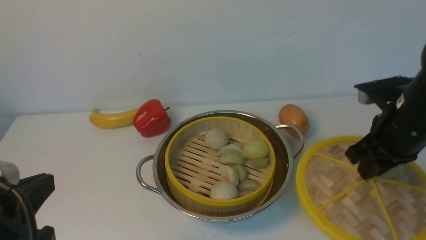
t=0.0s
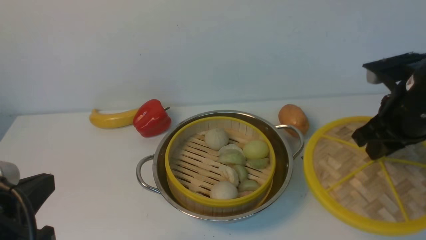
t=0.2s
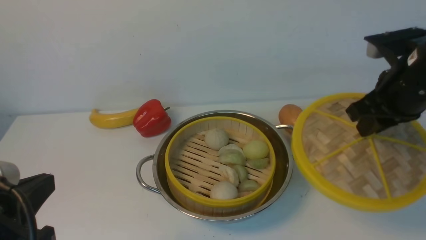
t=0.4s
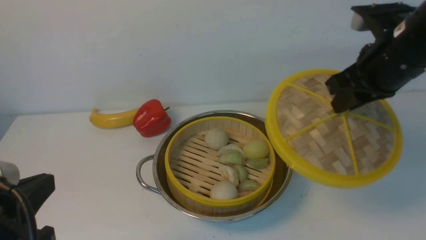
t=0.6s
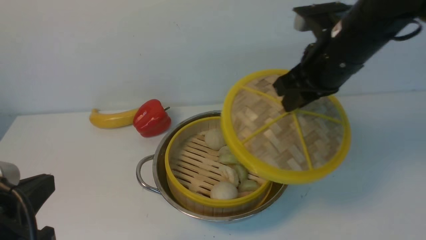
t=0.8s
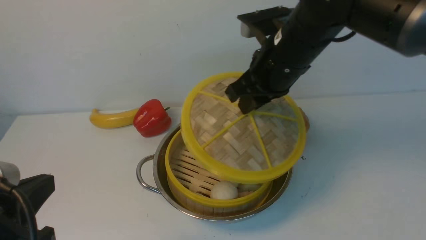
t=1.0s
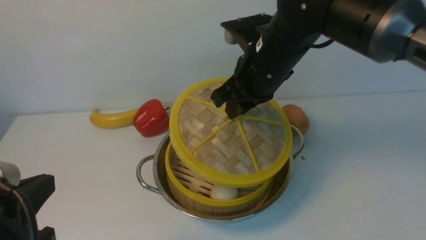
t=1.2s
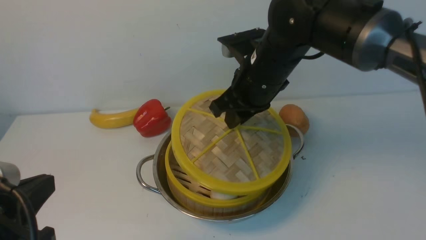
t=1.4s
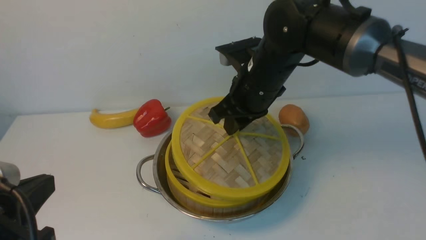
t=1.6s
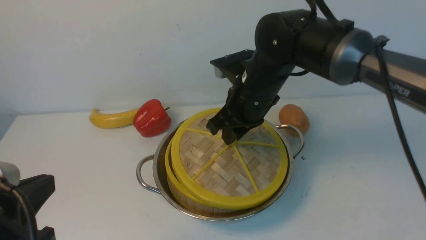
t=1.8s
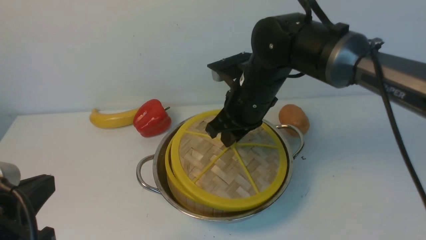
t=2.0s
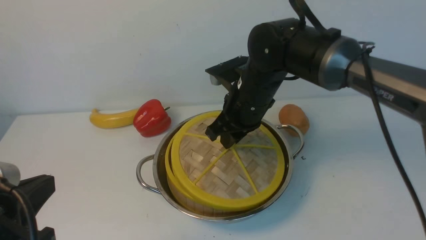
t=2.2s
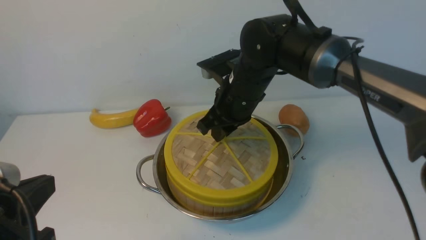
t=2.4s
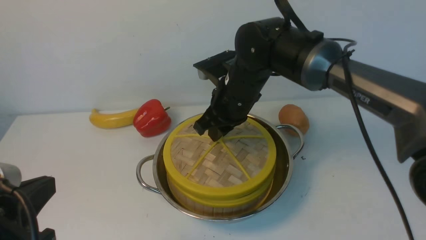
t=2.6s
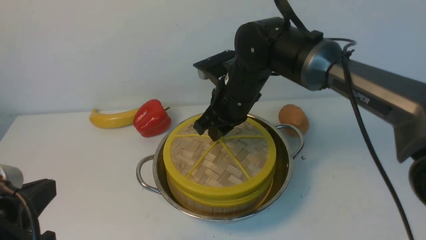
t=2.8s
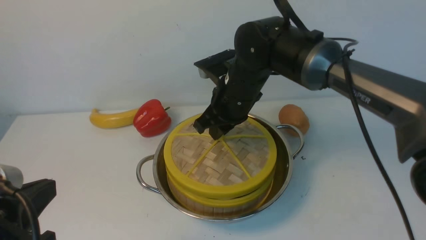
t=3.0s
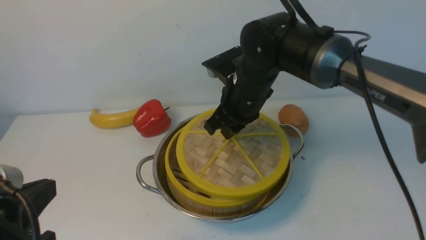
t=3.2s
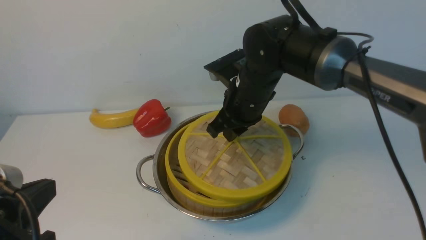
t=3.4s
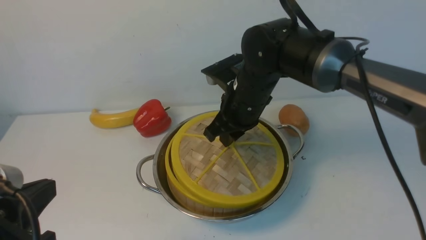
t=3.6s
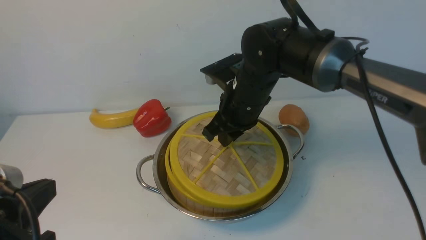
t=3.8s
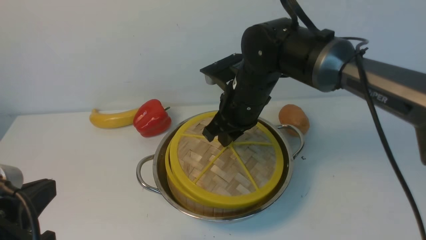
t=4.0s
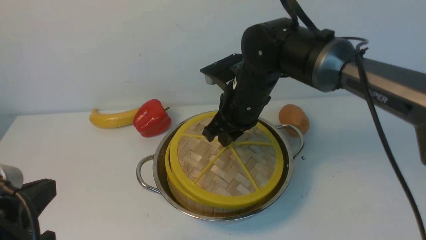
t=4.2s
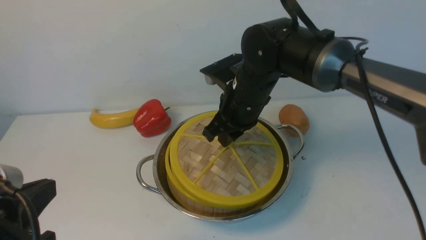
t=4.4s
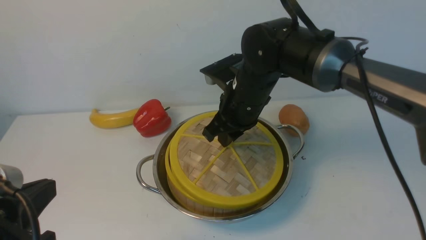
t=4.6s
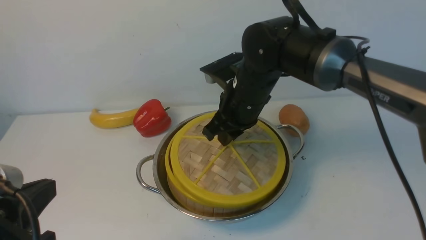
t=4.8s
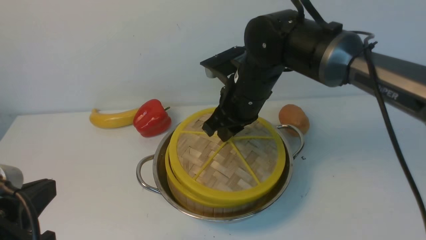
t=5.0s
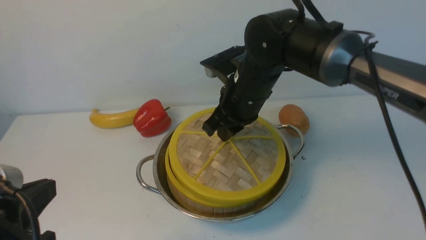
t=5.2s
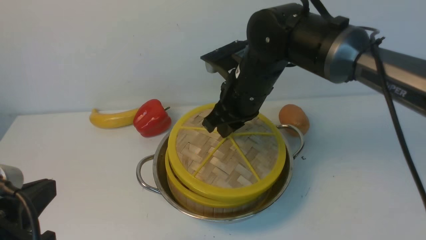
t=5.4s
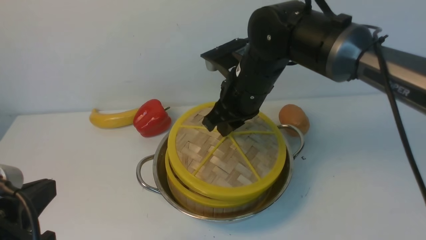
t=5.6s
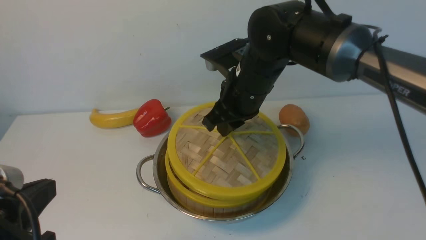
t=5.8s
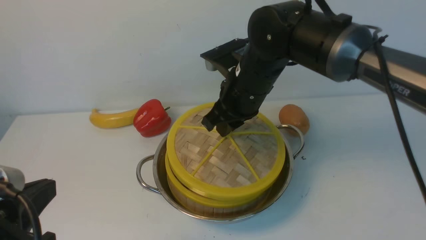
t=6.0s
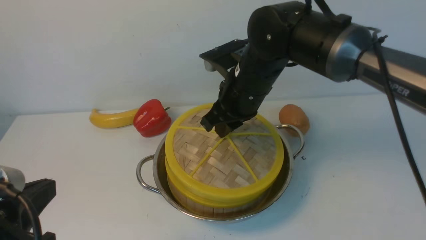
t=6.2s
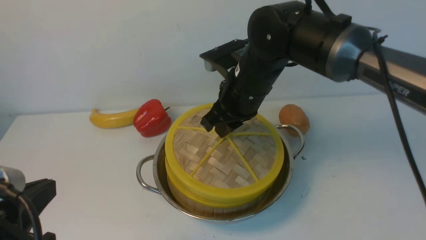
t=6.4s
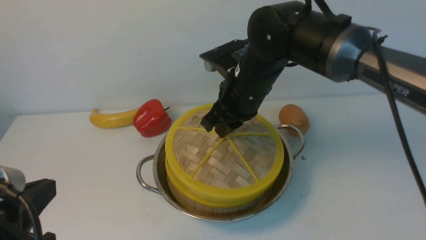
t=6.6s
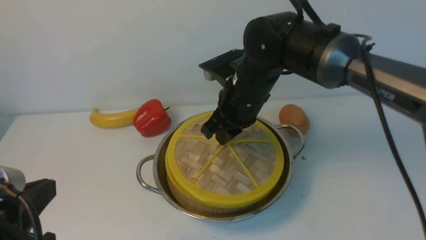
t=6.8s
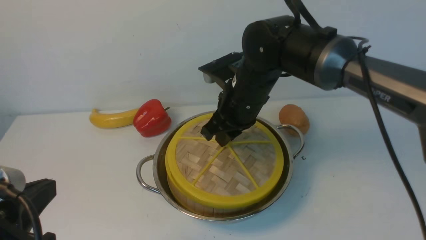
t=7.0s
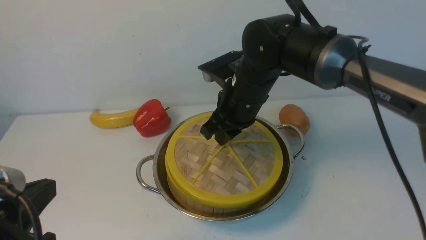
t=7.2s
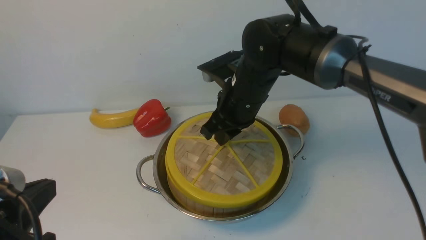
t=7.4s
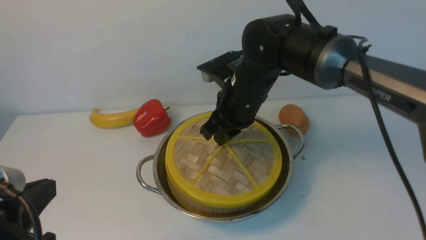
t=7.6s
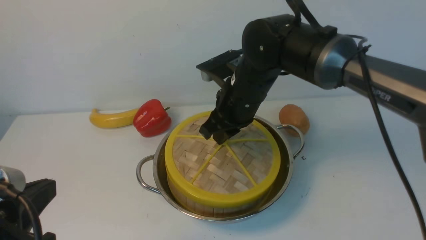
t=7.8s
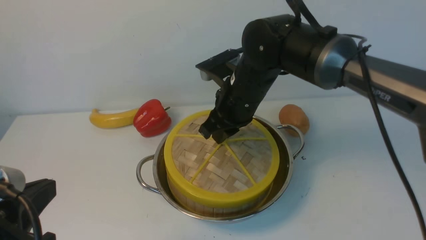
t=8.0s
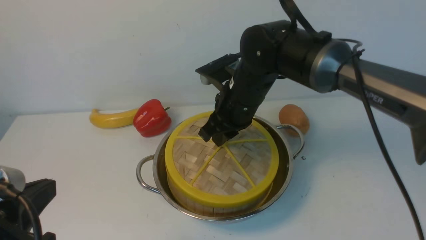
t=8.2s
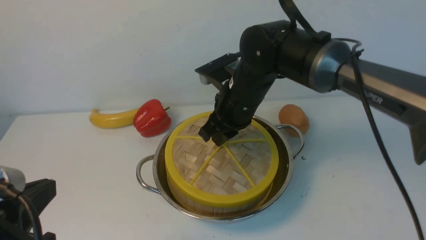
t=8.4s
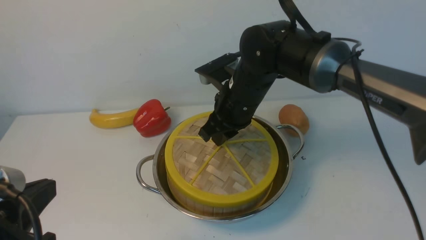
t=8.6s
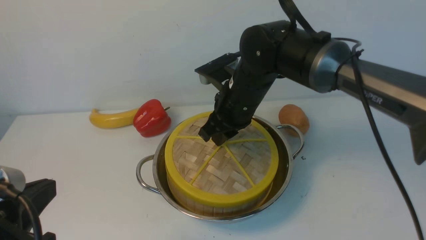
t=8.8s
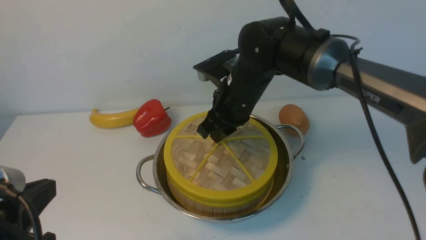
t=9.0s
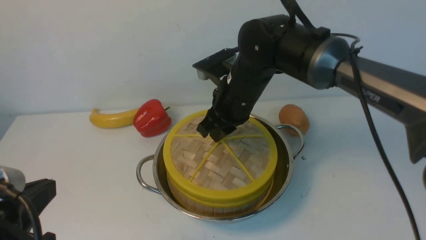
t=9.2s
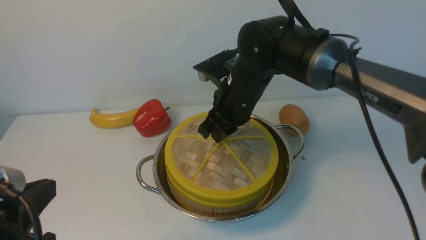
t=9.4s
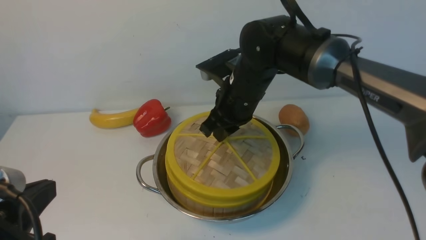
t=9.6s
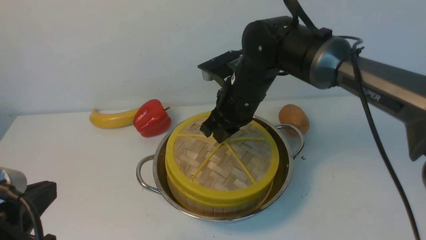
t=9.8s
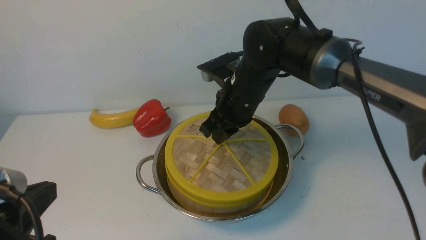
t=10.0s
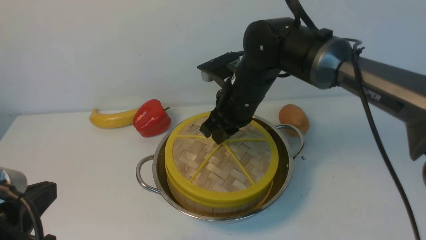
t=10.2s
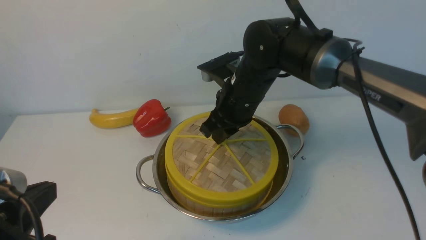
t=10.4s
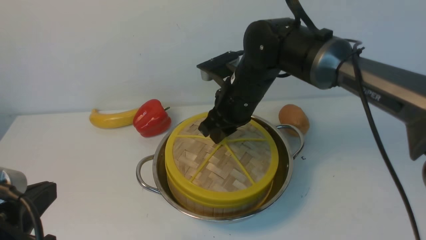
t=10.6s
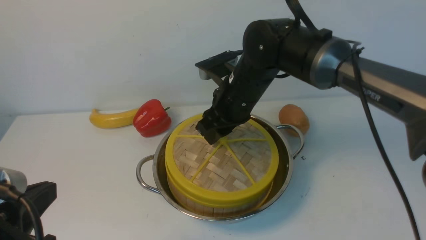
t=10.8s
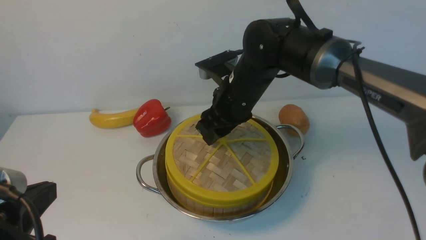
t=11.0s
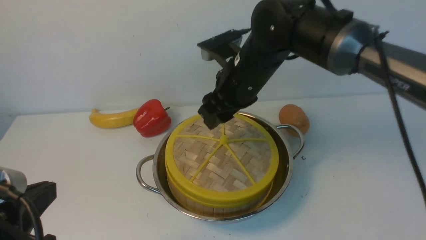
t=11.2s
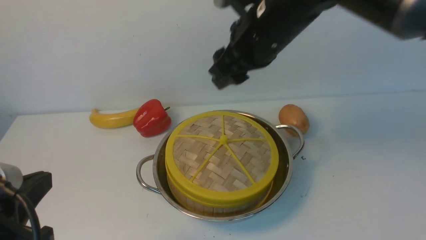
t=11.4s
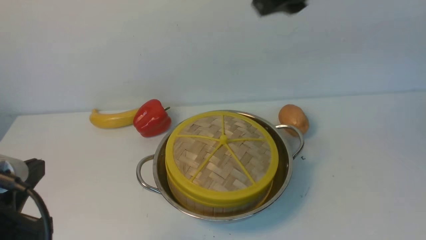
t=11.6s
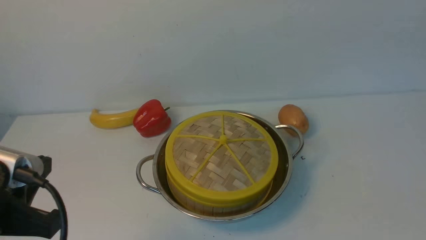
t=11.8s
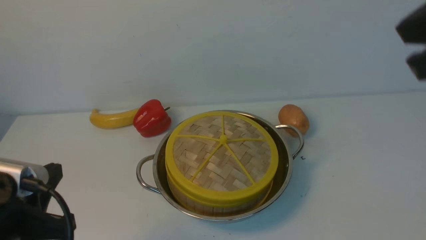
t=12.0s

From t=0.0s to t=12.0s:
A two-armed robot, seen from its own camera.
Task of the whole recording: place the steamer in the pot on the white table, and put the lid on the steamer.
Step, from t=0.6s to t=11.6s: use the right arm to place the steamer lid on the steamer.
From t=0.0s to t=1.6s: The right gripper heads to the left and forward, covering approximately 20 cm.
From t=1.6s to t=3.0s: The grippers make only small movements.
From t=3.0s to t=4.4s: The two grippers keep their place.
From t=4.4s to t=7.6s: The grippers stay close to where they were, moving slightly.
From t=7.6s to t=10.4s: Both grippers stay put.
From t=10.4s to t=12.0s: The right gripper travels upward, backward and to the right by roughly 35 cm, and closes its fingers.

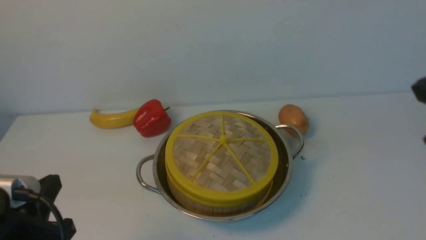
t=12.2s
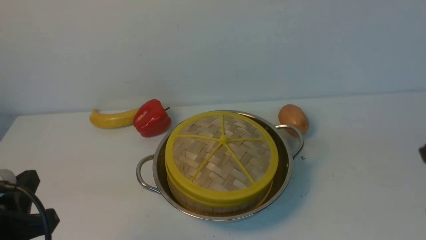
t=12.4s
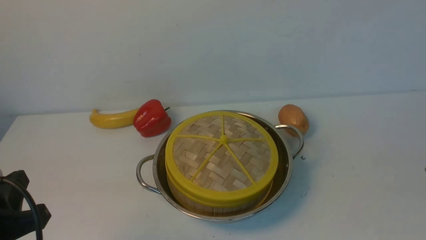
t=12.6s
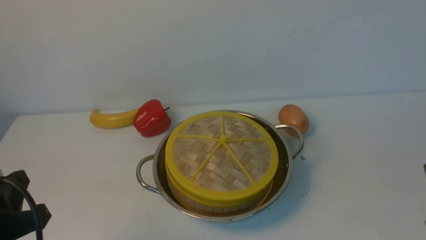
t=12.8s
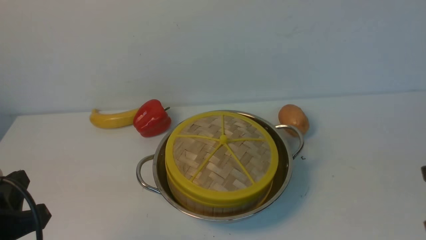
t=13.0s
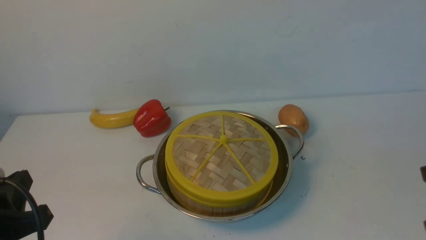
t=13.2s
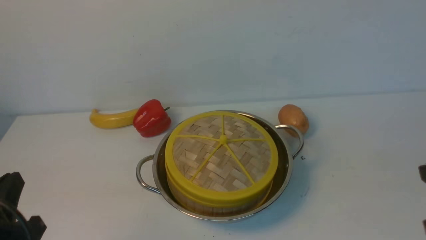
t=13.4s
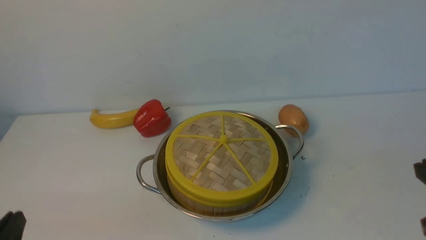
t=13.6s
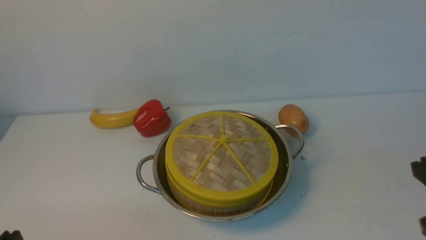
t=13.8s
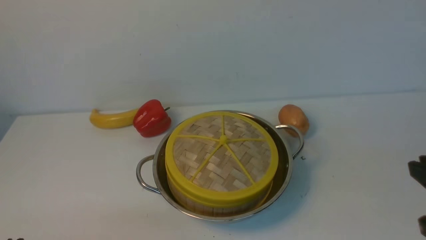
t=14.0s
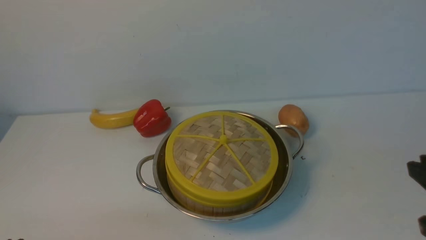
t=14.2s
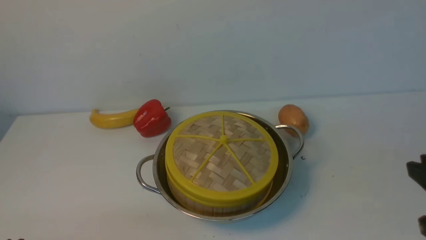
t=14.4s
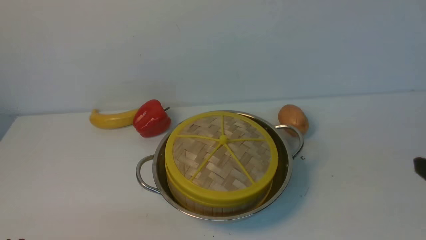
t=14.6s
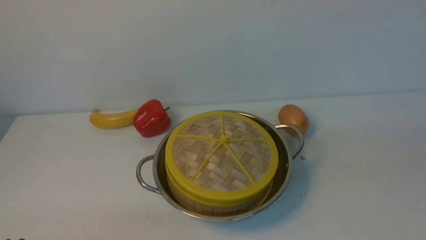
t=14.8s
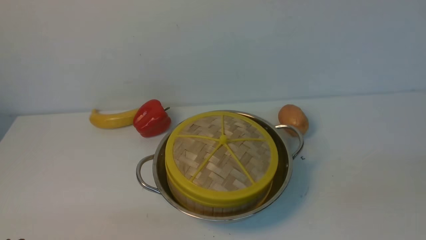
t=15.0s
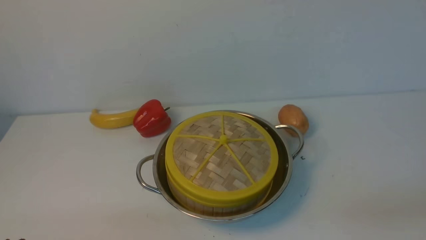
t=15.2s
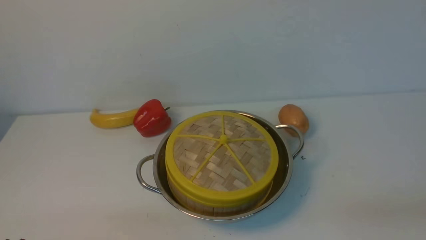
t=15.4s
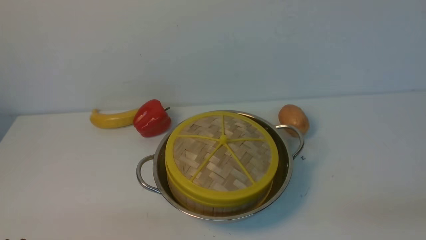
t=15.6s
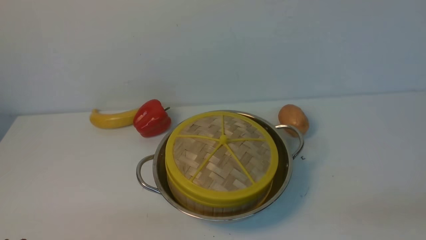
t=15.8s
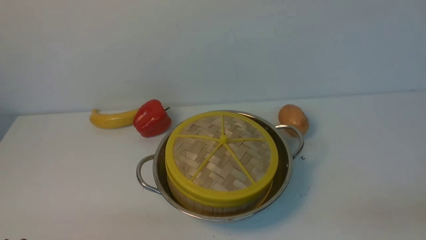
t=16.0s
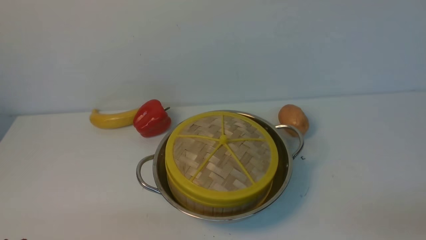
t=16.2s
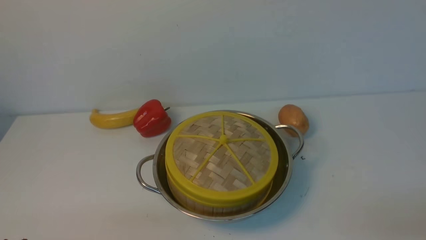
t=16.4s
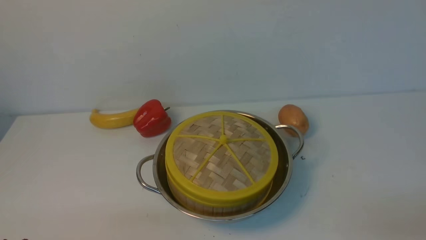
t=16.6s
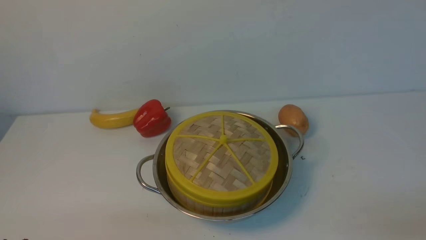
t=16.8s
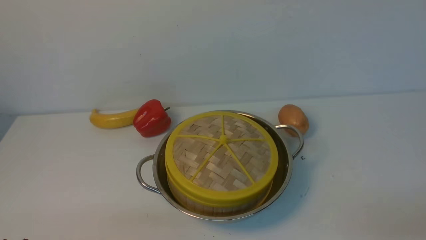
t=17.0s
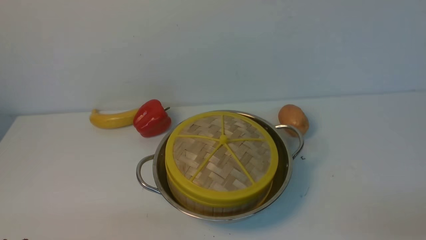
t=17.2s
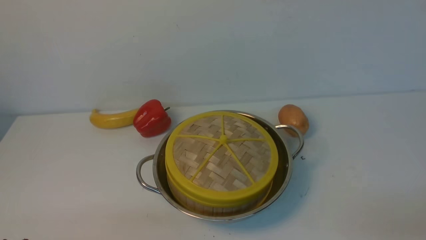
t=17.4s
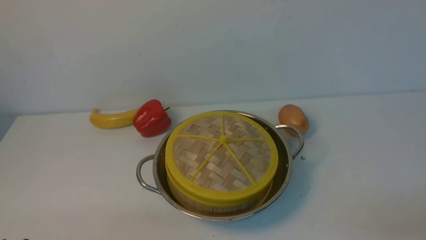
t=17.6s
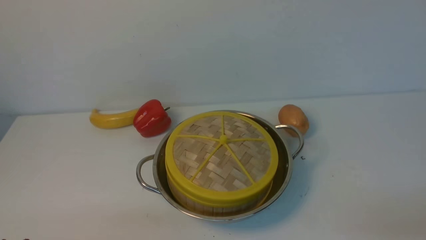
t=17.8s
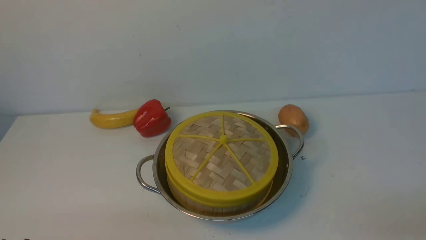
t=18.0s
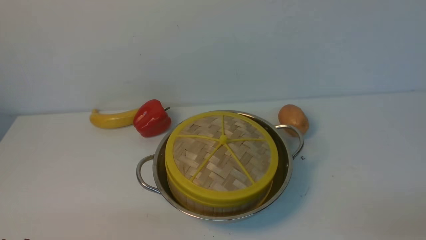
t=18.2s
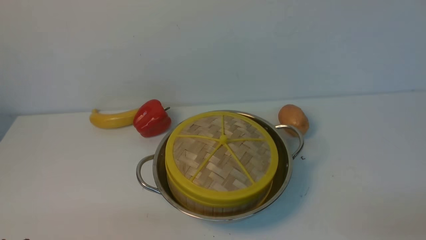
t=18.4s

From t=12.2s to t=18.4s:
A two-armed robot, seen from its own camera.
Task of the whole recording: place the steamer in the pot on the white table, and put the lid on the steamer.
From t=12.2s to t=13.8s: The right gripper travels downward by about 10 cm. The left gripper heads downward and backward, covering some 10 cm.
From t=16.8s to t=18.4s: Both grippers stay about where they are.
